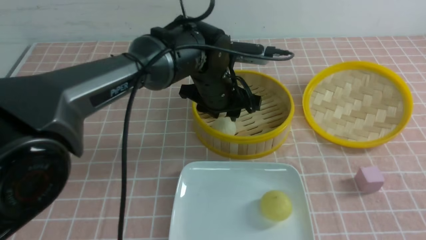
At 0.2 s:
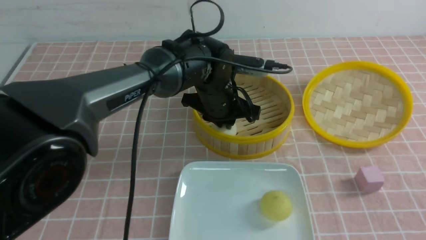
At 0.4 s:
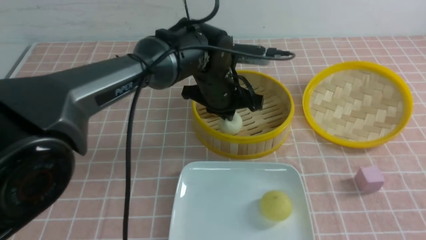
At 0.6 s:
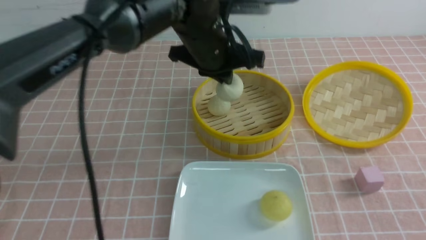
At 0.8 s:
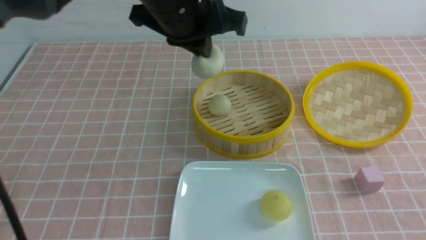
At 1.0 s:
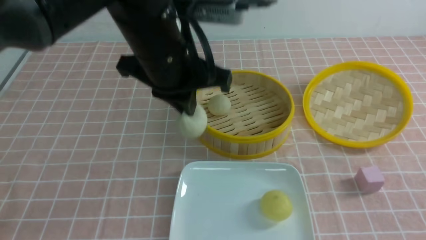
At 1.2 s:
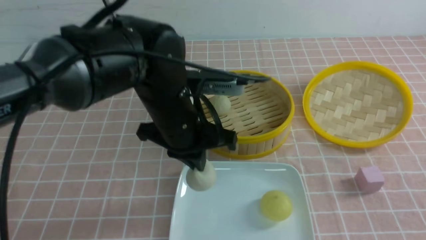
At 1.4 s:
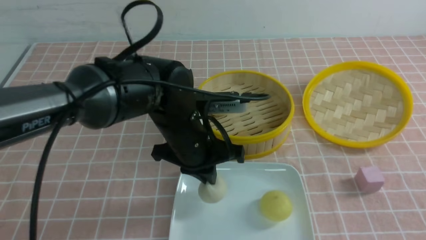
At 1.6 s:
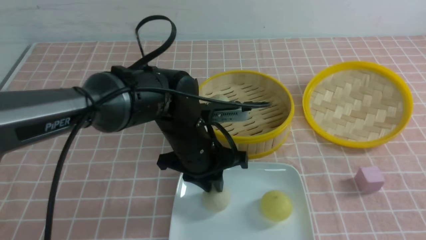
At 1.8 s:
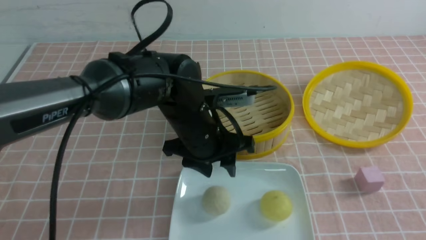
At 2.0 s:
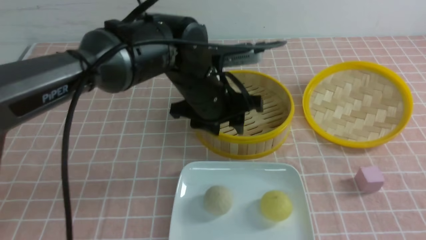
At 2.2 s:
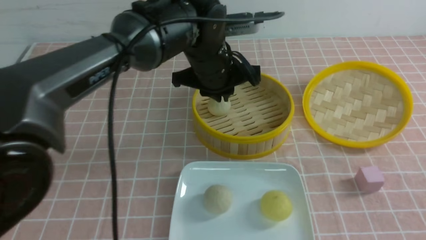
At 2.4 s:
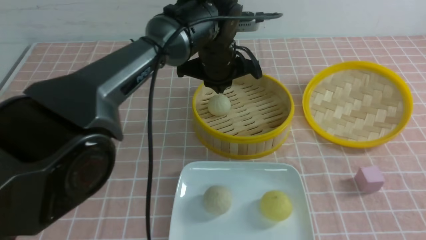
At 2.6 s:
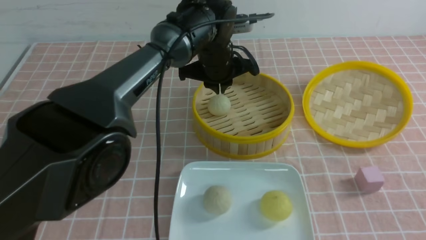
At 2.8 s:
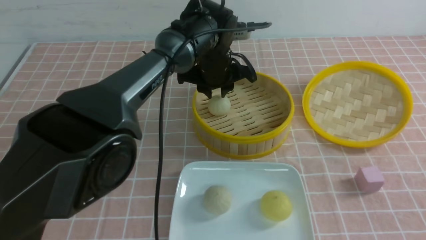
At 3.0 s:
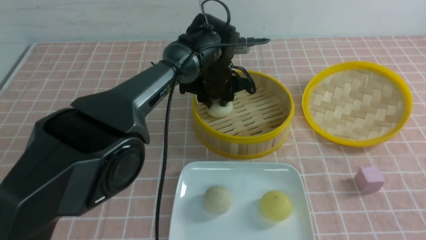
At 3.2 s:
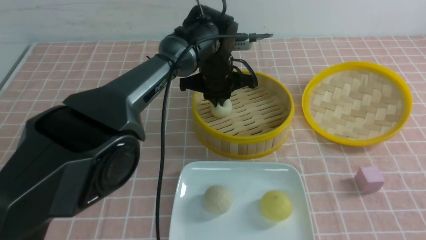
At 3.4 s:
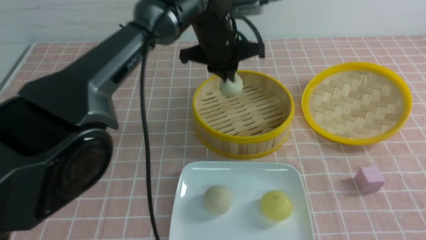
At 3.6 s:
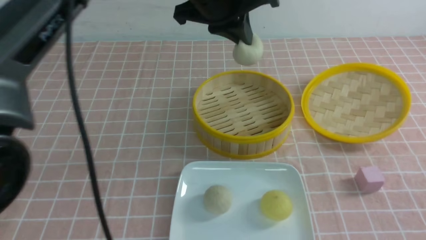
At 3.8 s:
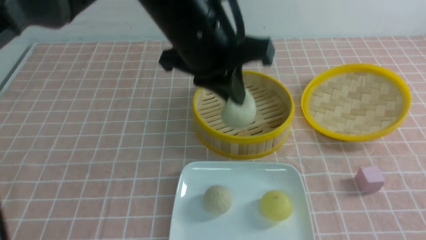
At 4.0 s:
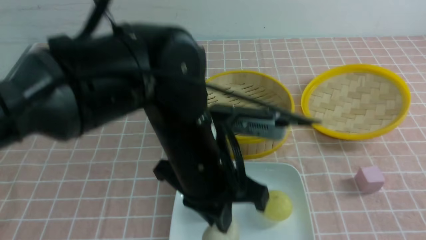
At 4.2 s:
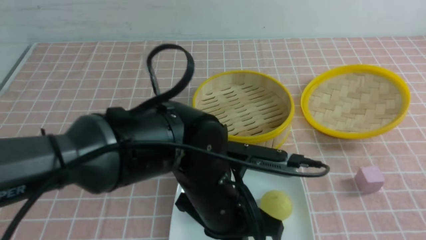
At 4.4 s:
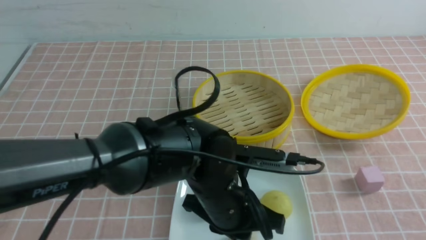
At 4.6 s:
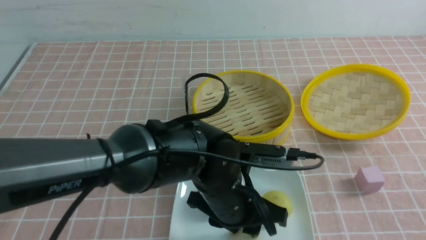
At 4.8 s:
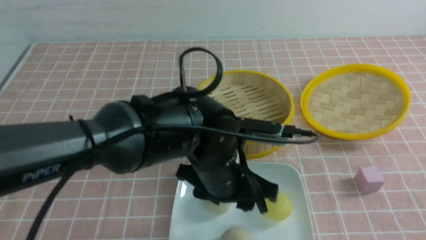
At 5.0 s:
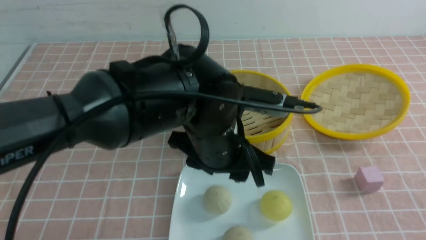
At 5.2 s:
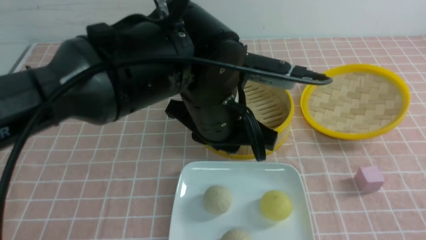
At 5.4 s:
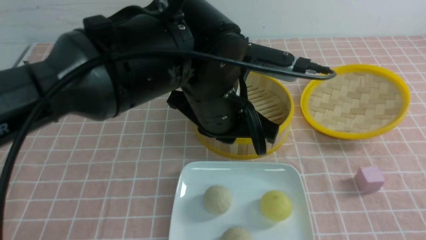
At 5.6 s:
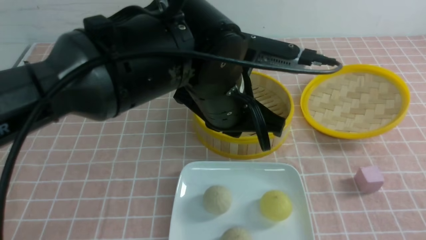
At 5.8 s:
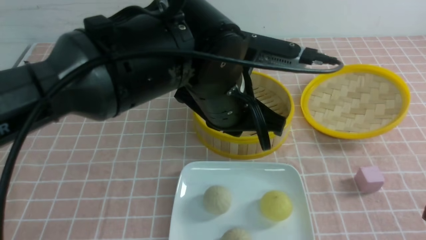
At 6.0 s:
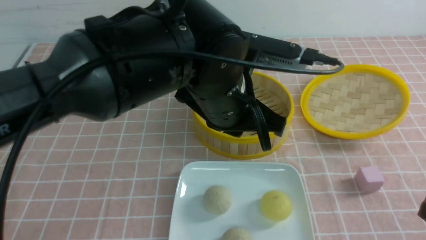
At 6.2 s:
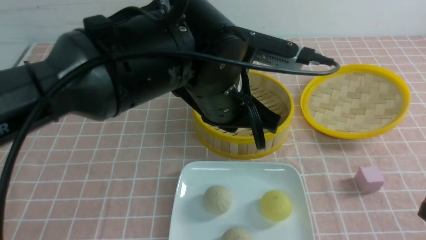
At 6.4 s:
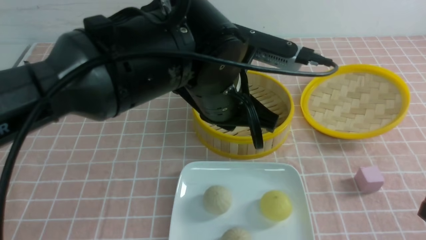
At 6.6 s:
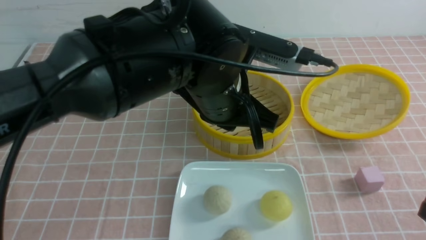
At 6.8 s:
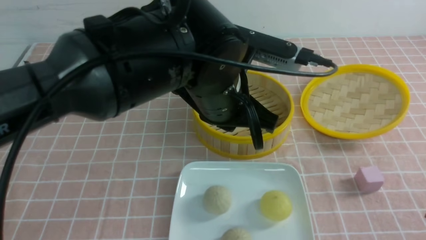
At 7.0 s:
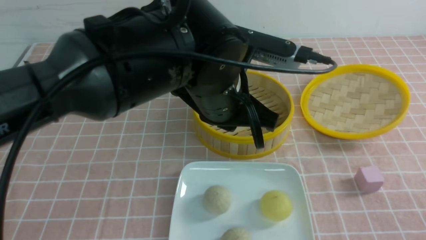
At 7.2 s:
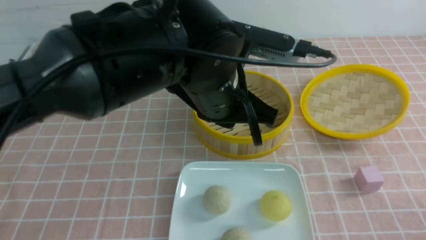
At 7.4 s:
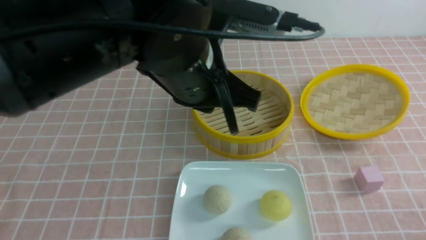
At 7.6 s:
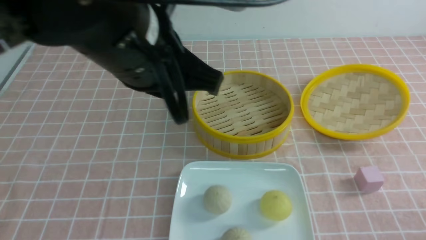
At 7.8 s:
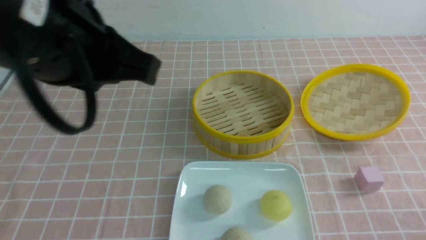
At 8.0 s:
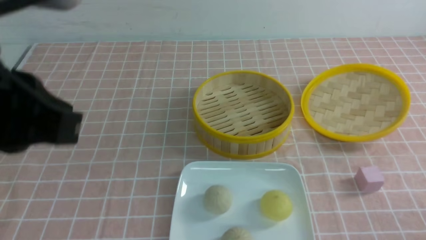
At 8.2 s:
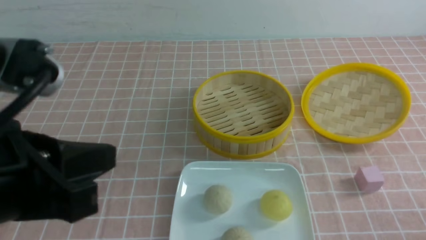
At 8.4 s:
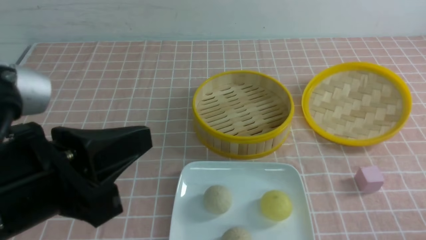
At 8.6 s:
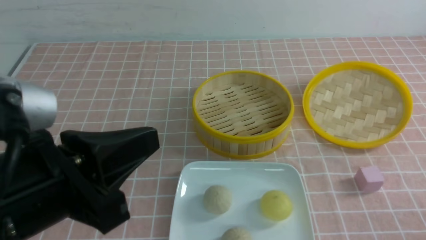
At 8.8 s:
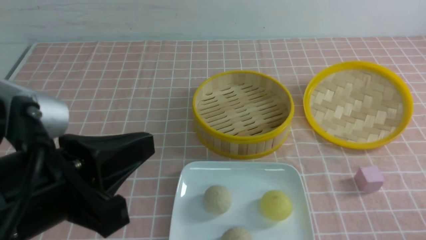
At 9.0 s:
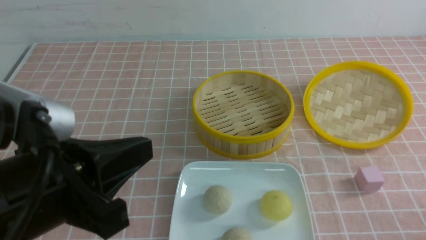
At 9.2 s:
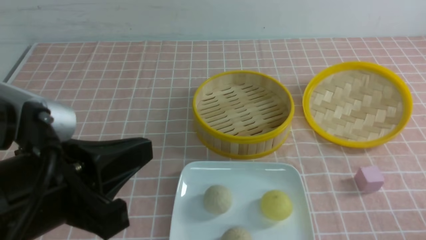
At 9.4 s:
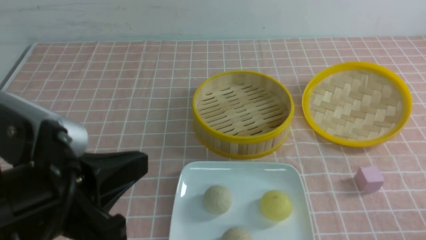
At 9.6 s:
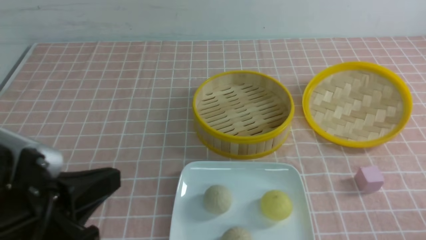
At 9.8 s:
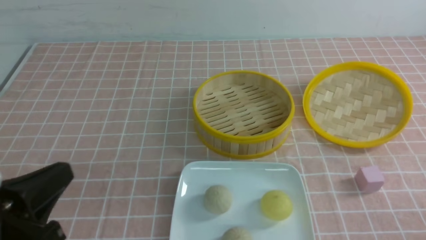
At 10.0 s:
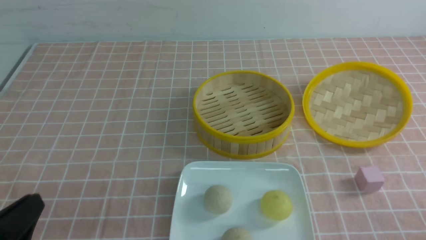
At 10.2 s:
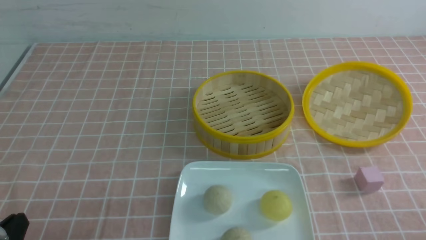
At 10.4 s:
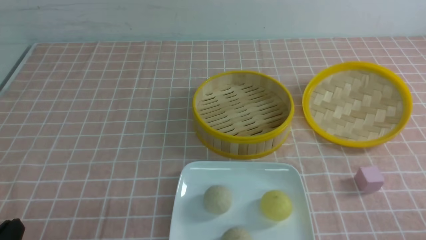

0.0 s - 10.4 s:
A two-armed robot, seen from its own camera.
Step, 0.4 s - 1.6 s: use the left arm to put the steamed stuffed bun into the plate.
Step, 1.8 s - 3.2 s: use the left arm to grab the steamed stuffed bun that is closest to it.
Step, 3.4 s - 4.6 s: use the left arm to put the steamed stuffed bun into the plate.
0.0 s - 1.4 s: The left gripper travels backward by about 10 cm, moves roughly 15 cm upward and comes back, and closes.
1.4 s - 3.0 s: The left gripper heads forward, covering roughly 15 cm, and opens and closes again.
3.0 s - 4.4 s: The left gripper travels backward by some 25 cm, and closes, then opens again.
4.4 s - 6.0 s: The right gripper closes up. The left gripper heads upward, covering about 10 cm, and closes up.
6.0 s - 7.4 s: The right gripper moves downward, roughly 10 cm. The left gripper shifts roughly 5 cm upward.
7.4 s - 9.0 s: The left gripper is displaced backward and to the left by roughly 20 cm.
9.0 s - 10.4 s: The left gripper is displaced downward and to the left by some 20 cm.

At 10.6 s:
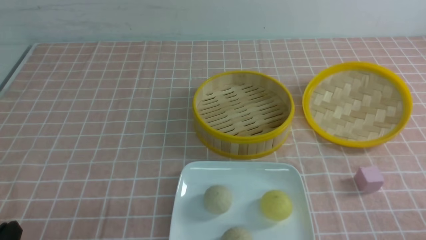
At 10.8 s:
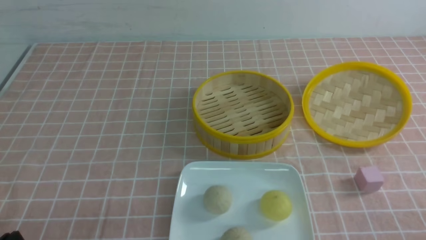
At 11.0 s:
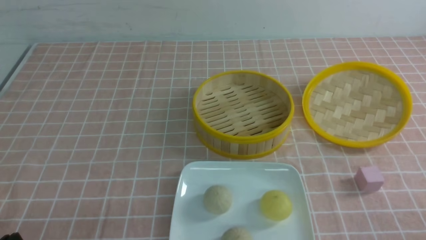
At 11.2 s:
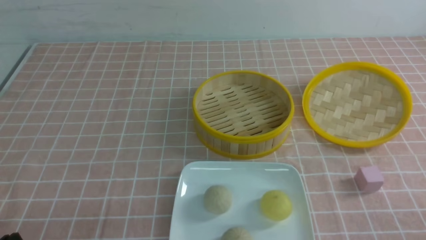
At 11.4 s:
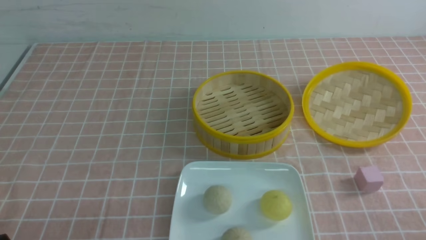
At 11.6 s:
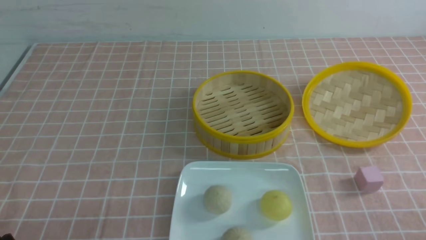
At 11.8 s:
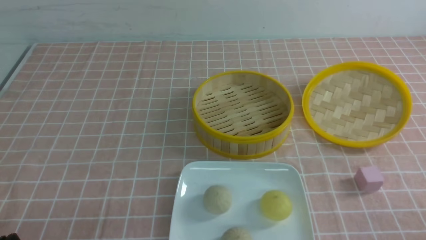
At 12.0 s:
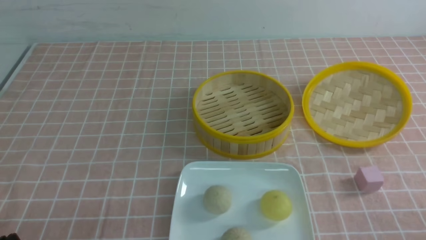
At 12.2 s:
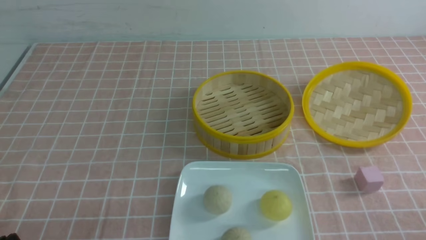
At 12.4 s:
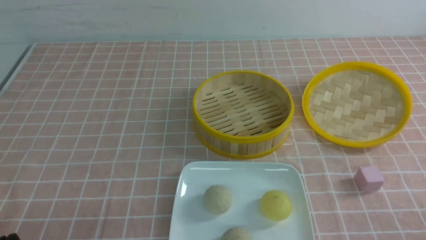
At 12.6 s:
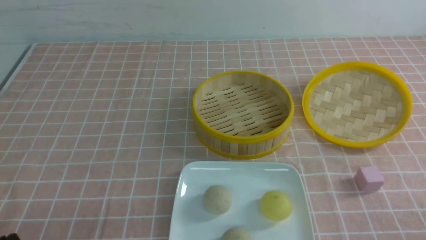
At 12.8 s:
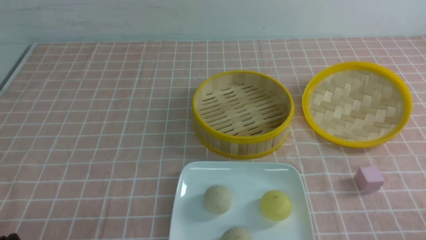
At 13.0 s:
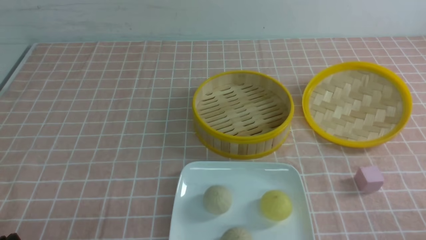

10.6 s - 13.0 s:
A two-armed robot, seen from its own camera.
11.8 s - 13.0 s: Both grippers stay put.
